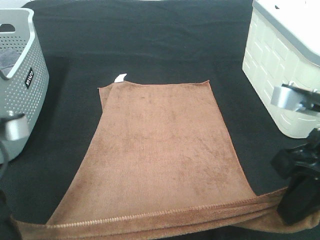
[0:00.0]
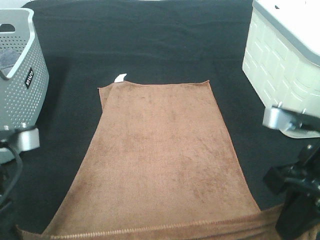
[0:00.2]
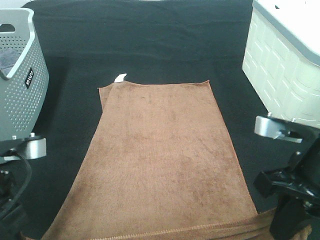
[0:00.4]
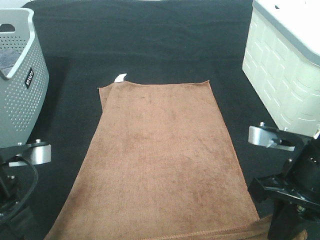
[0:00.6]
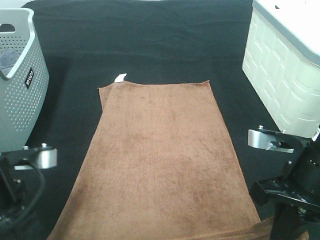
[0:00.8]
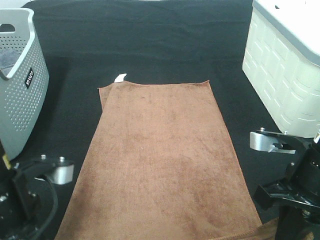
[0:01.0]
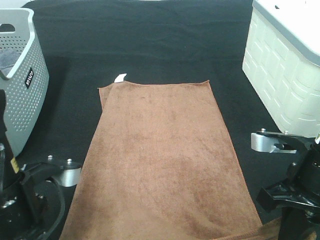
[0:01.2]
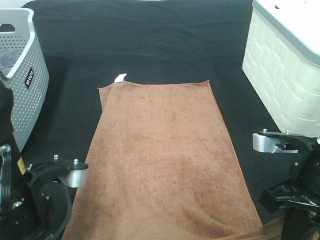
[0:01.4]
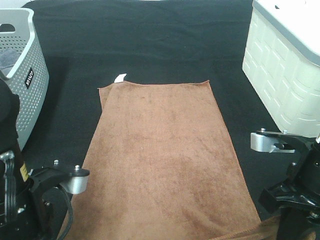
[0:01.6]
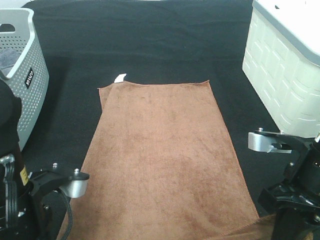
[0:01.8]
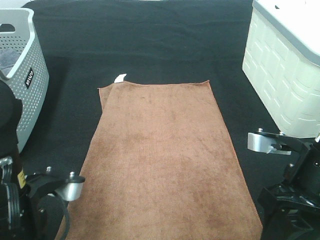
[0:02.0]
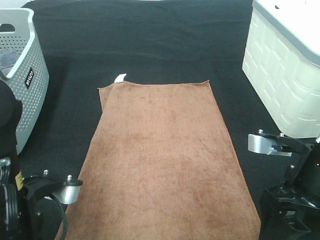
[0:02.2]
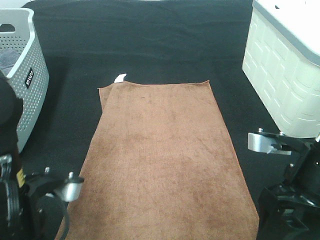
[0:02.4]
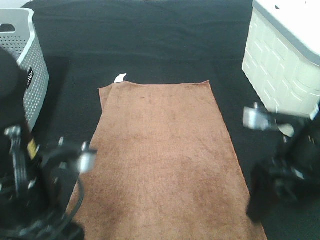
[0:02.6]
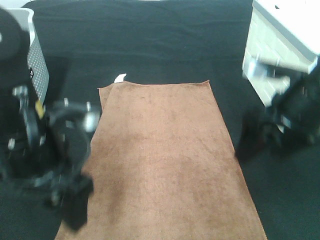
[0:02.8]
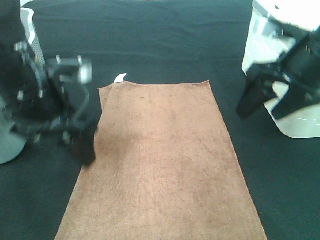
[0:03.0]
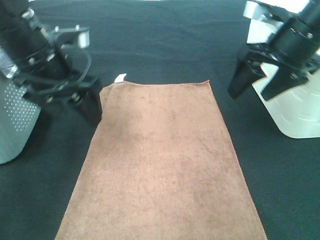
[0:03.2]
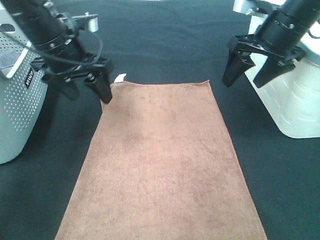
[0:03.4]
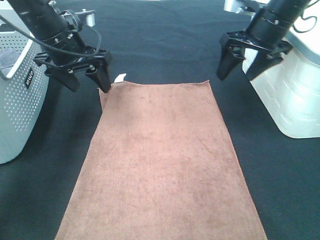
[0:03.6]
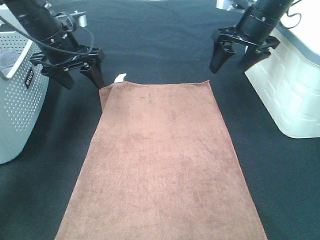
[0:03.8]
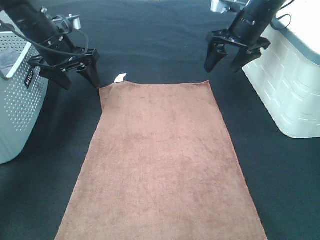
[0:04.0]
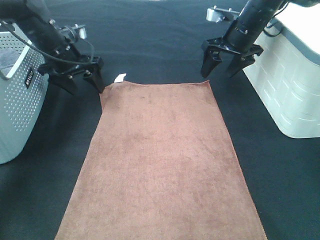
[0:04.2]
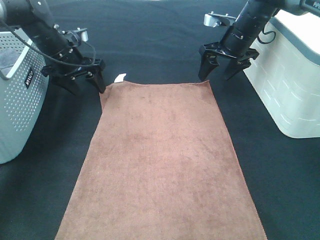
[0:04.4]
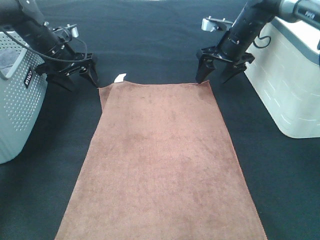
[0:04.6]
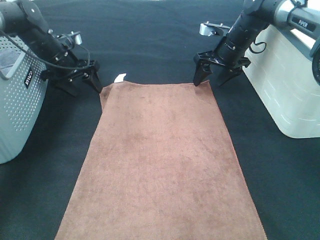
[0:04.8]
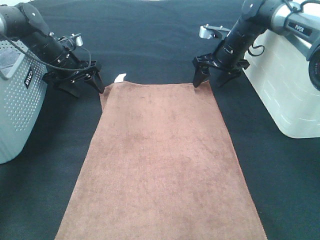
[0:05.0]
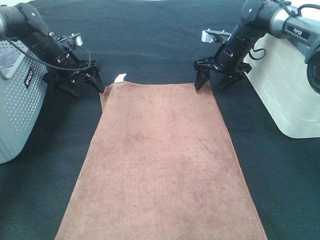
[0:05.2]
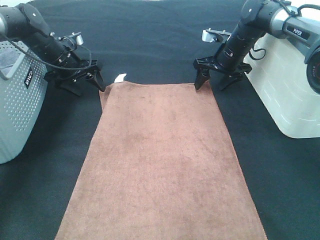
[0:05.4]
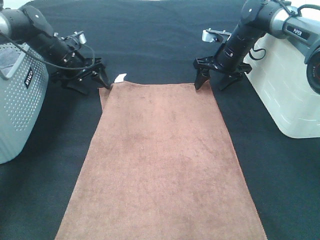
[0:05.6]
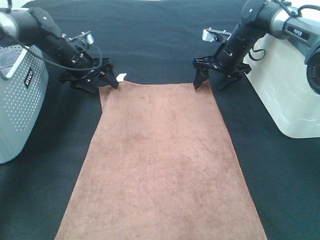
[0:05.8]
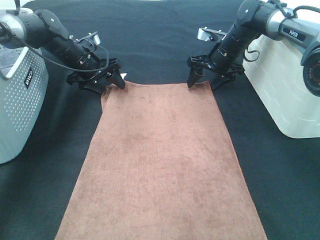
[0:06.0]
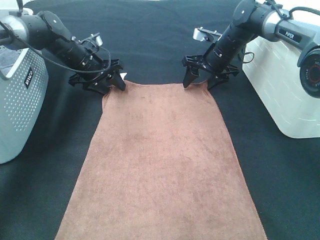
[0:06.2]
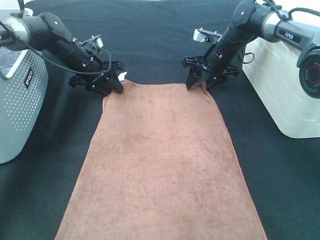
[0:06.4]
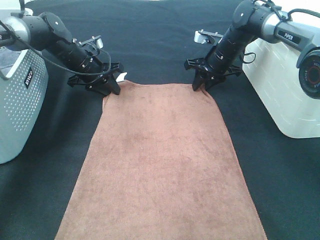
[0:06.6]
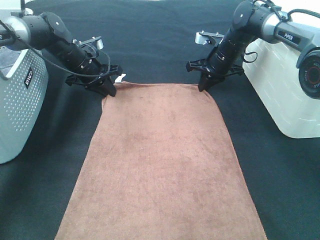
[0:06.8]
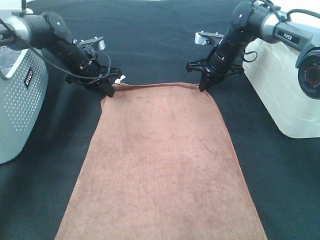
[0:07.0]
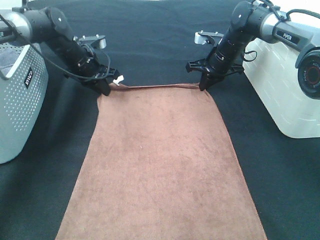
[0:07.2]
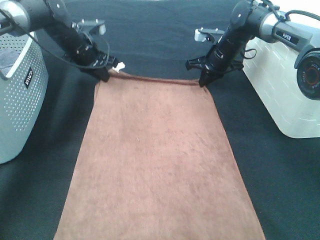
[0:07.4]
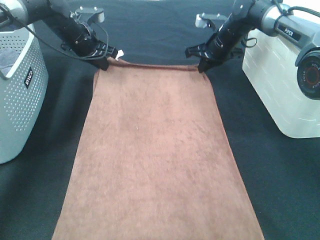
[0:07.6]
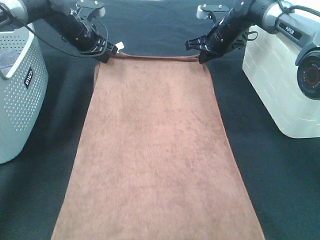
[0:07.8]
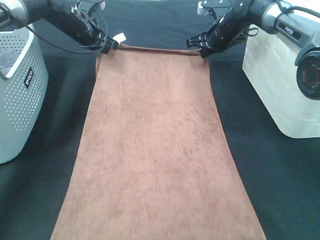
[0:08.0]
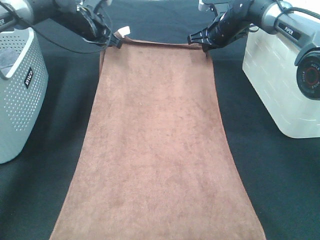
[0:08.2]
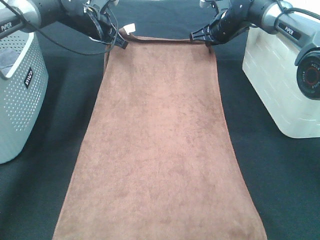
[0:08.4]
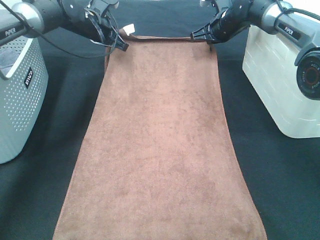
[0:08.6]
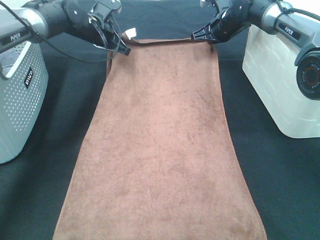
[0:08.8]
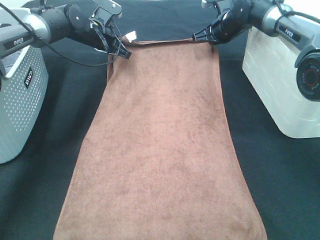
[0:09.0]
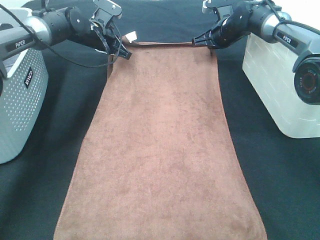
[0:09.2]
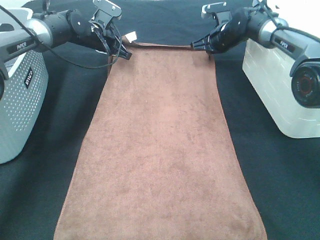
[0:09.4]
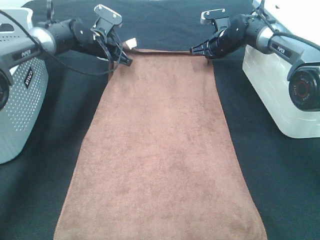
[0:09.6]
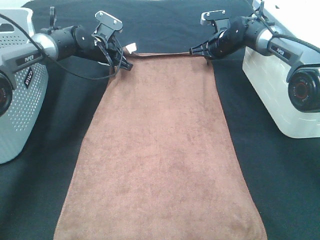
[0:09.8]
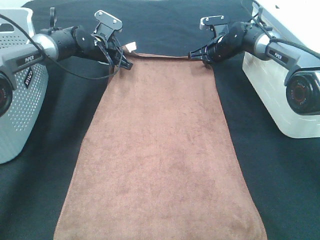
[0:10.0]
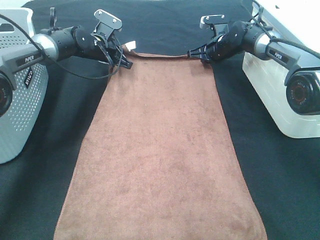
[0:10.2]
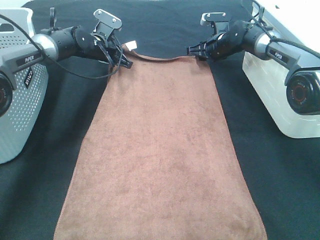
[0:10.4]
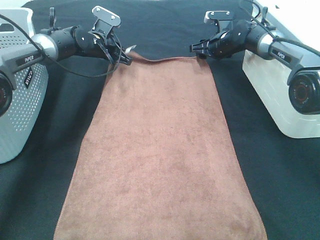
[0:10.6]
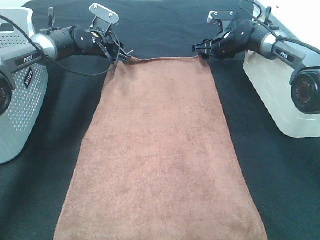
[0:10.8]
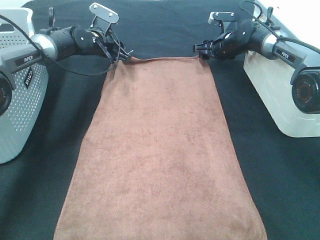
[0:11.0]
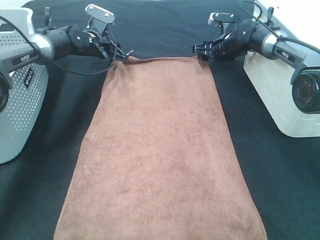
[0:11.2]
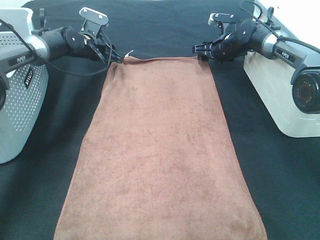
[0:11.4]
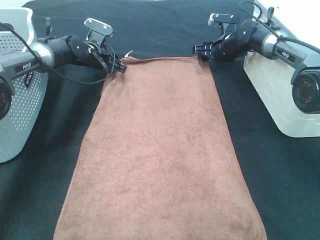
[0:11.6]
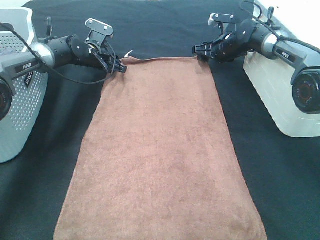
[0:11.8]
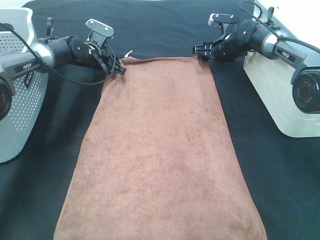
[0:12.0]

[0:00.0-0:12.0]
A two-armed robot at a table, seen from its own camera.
Task of the whole recording: Remove the towel and place it.
Step, 0:00.0 to 0:04.4: Right hand:adjust the brown towel.
Step, 0:00.0 to 0:08.0: Left hand:adjust the brown towel.
0:00.0 to 0:01.6: The left gripper travels to the right and downward by about 10 cm. Meanwhile the right gripper moves downward, roughly 5 cm.
0:01.6 to 0:03.0: Both grippers travel together forward and upward, some 15 cm. The right gripper opens up; the left gripper opens up.
0:03.0 to 0:04.4: The right gripper heads forward and downward, covering about 25 cm; the left gripper shifts approximately 20 cm forward.
0:04.4 to 0:06.0: The right gripper goes roughly 5 cm downward. Meanwhile the left gripper moves about 5 cm.
0:06.0 to 0:07.6: The left gripper heads upward, covering some 5 cm, and closes. Meanwhile the right gripper closes.
0:09.0 to 0:10.4: The right gripper travels downward by roughly 5 cm, and opens up.
0:10.4 to 0:12.0: The left gripper opens up.

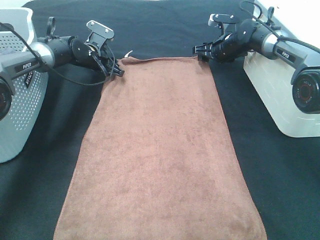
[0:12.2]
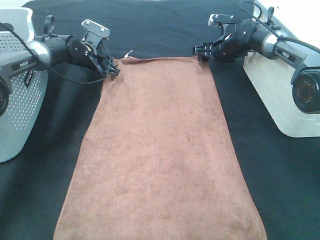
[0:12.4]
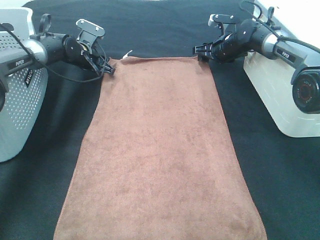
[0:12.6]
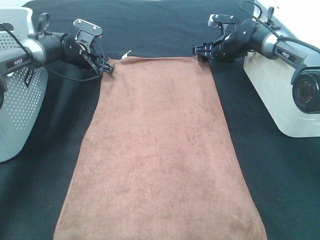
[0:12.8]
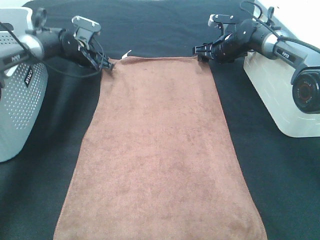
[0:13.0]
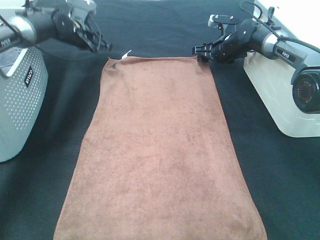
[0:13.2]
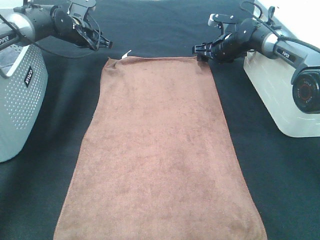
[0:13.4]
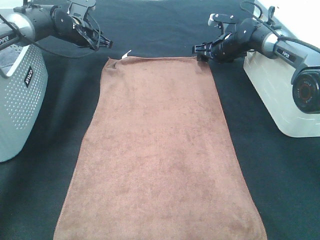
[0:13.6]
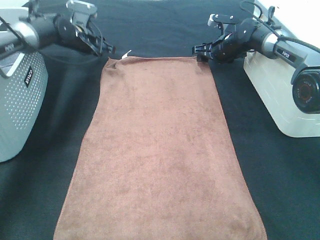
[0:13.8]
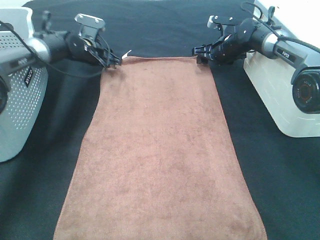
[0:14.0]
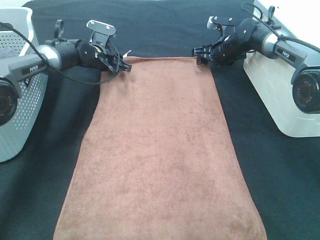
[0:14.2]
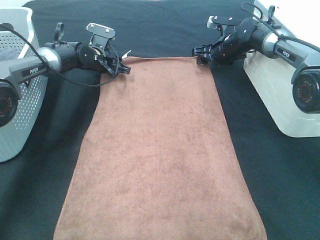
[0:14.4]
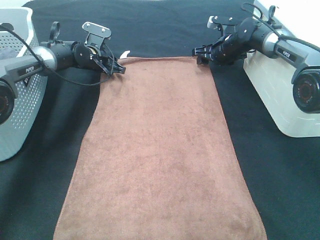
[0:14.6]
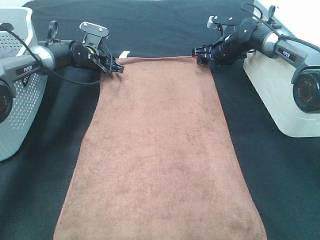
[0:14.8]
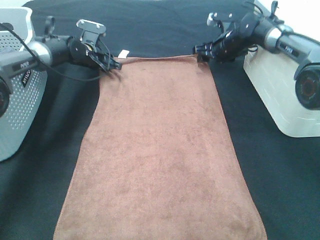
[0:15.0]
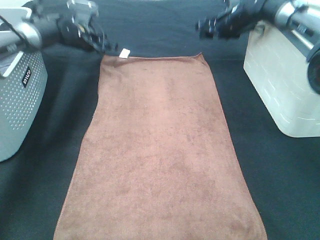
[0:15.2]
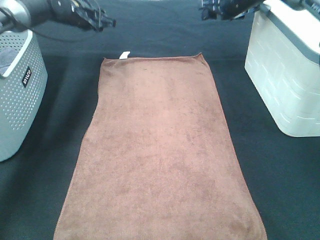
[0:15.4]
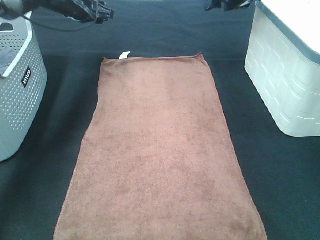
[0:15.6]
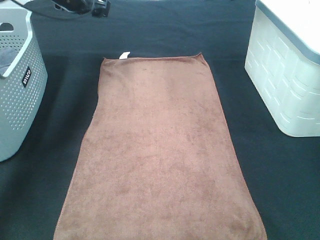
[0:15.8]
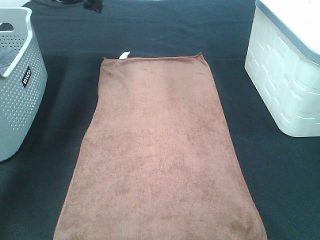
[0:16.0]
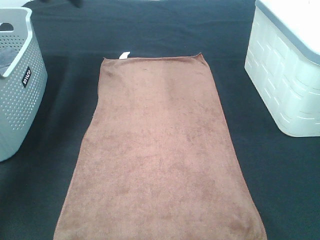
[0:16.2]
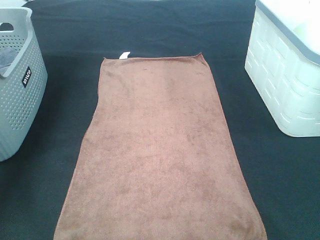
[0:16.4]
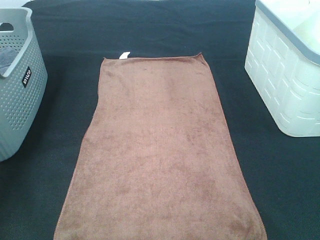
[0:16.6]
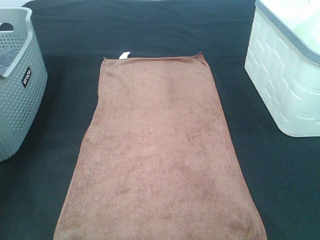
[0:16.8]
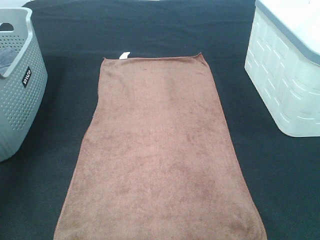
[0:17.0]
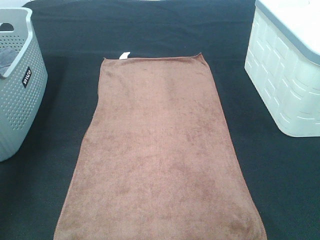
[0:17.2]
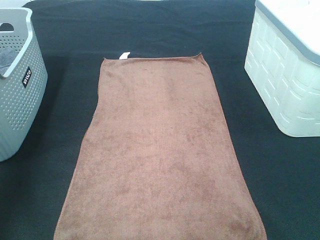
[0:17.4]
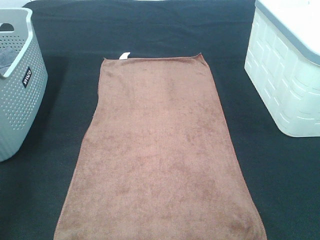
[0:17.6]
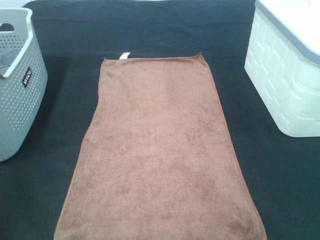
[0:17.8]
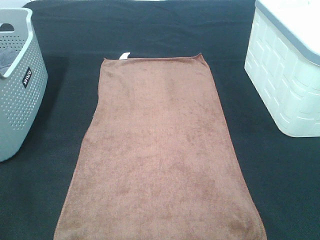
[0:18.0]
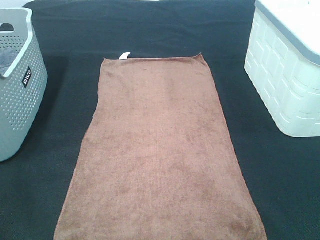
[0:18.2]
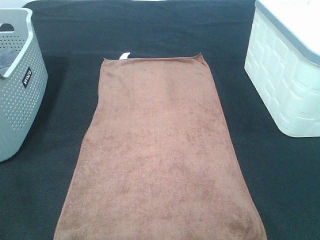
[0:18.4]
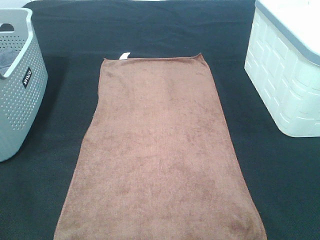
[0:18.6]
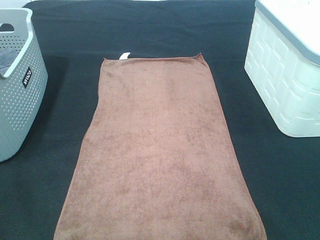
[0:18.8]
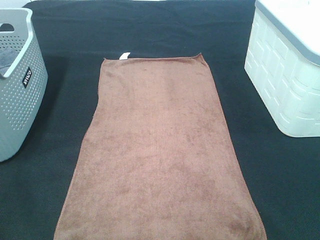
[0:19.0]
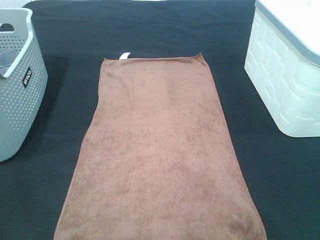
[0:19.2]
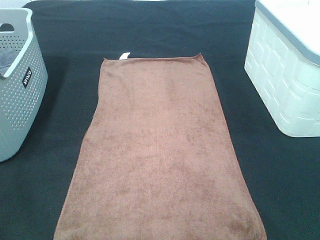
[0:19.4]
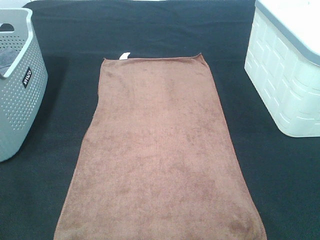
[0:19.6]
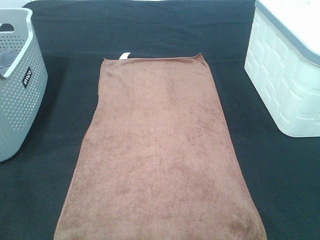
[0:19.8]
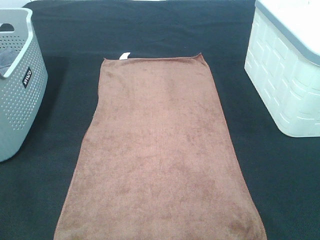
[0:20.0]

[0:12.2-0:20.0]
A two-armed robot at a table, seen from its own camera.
Task of the whole recording: Remove the towel and place it.
0:13.8 to 0:15.4: The right gripper shifts approximately 15 cm upward. Meanwhile the left gripper travels upward by some 10 cm.
0:15.4 to 0:16.8: The right gripper is displaced backward and upward by approximately 30 cm; the left gripper heads upward, backward and to the left, covering approximately 30 cm.
0:16.8 to 0:18.4: Both grippers move backward, roughly 40 cm.

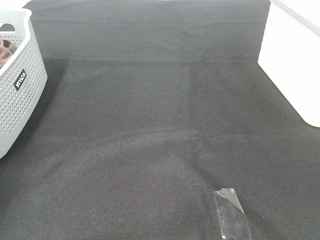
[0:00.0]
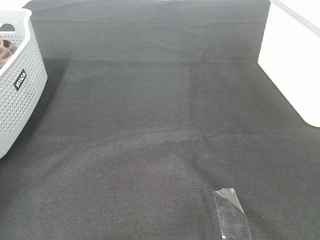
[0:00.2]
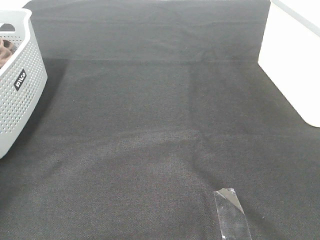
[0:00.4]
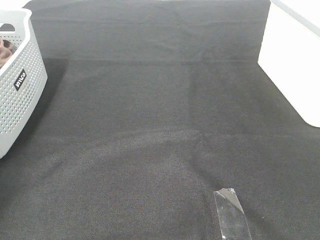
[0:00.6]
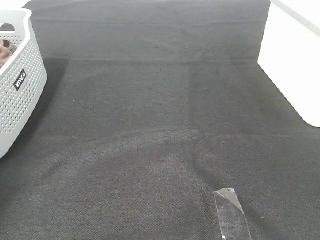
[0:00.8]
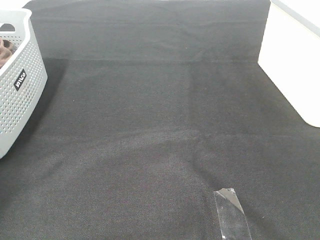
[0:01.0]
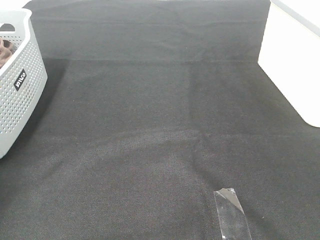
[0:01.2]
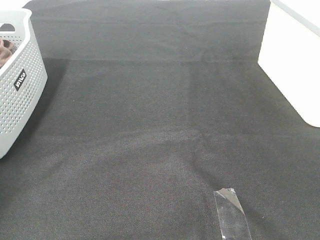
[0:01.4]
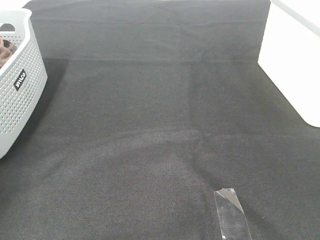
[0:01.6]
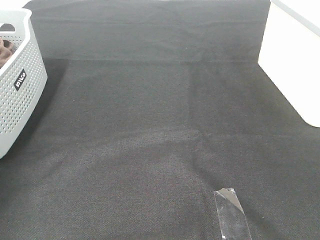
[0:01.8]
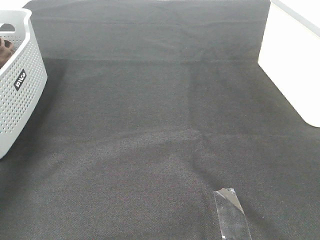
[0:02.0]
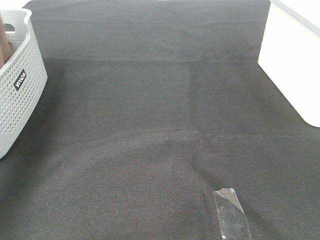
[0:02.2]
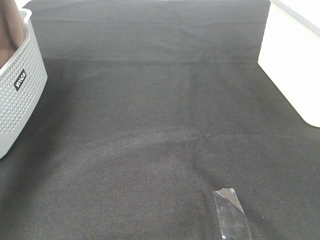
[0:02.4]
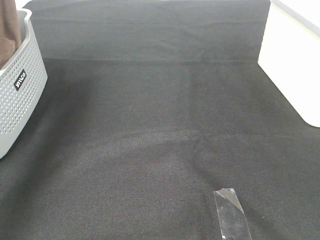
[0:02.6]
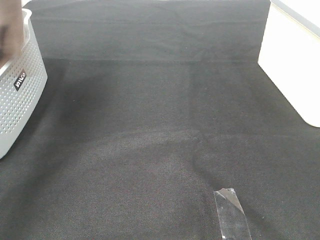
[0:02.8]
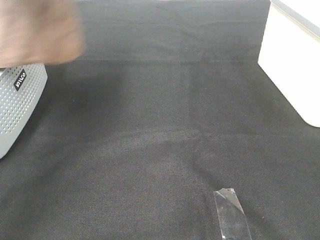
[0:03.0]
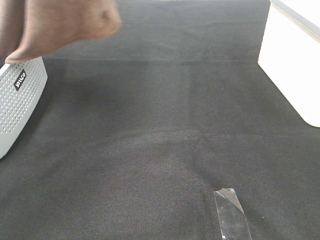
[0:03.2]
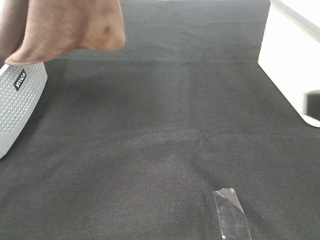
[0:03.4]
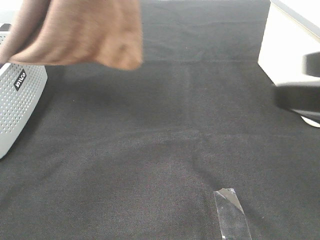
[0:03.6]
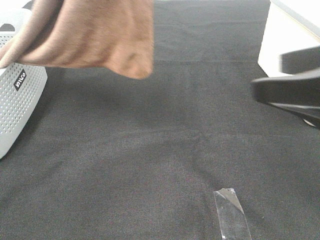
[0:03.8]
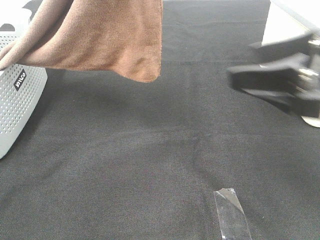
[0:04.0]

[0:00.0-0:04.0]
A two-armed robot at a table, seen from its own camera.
Task of the whole recording: Remove the towel and place it.
0:01.4 to 0:02.6: The left gripper shifts roughly 25 cm upward and to the right.
0:02.6 to 0:04.0: The left gripper moves to the right, some 15 cm; the right gripper moves forward, approximately 20 cm.
